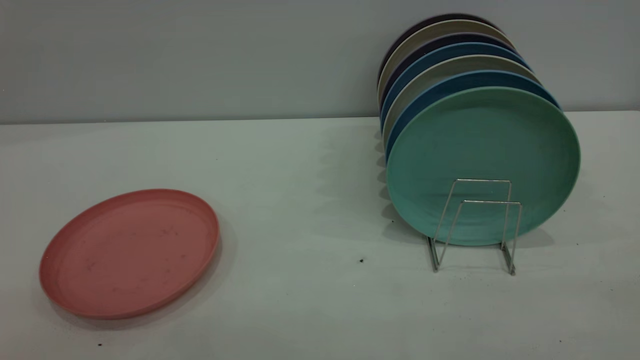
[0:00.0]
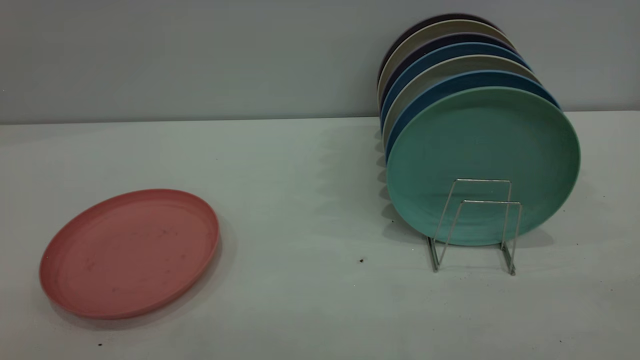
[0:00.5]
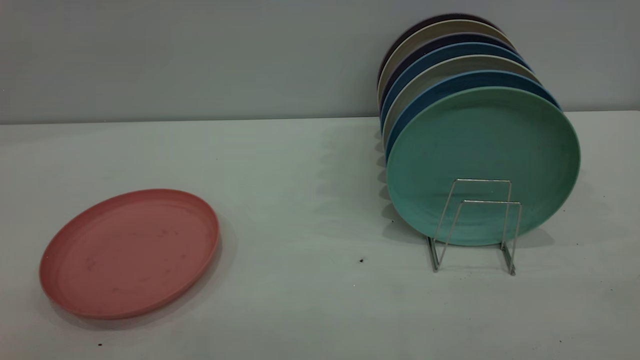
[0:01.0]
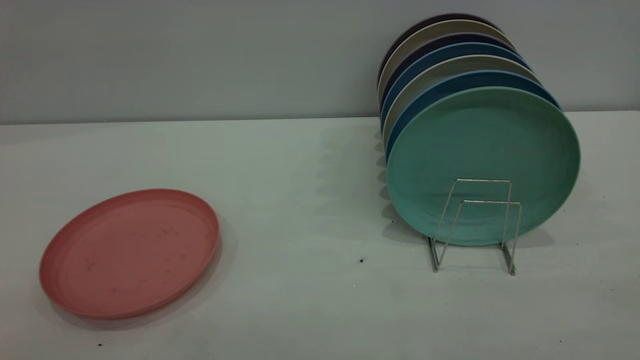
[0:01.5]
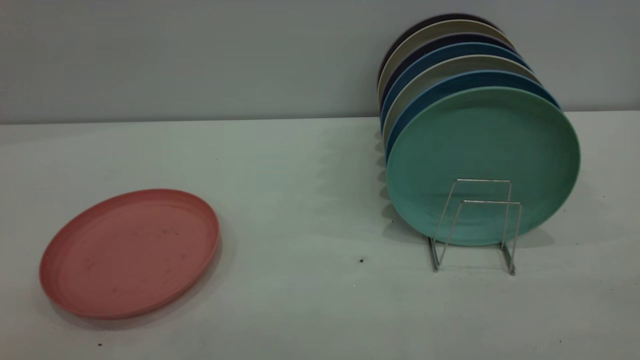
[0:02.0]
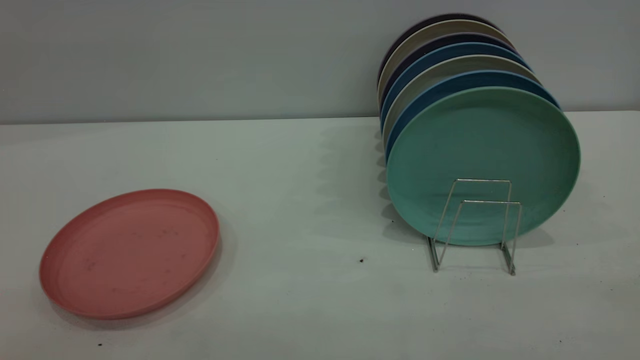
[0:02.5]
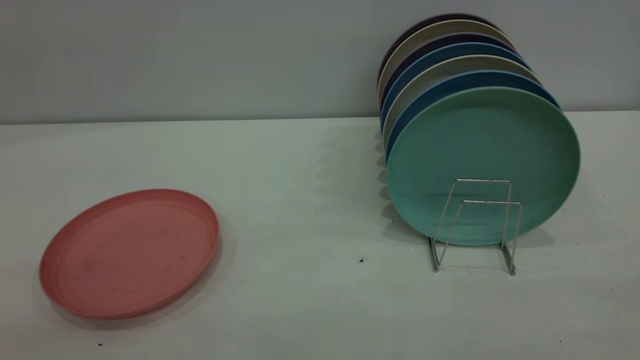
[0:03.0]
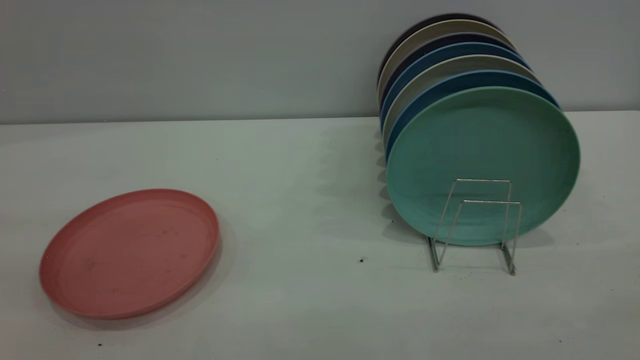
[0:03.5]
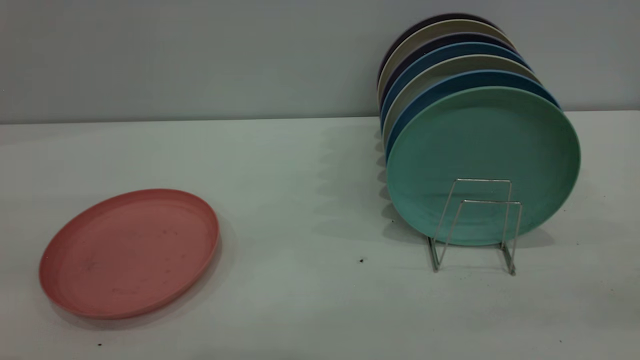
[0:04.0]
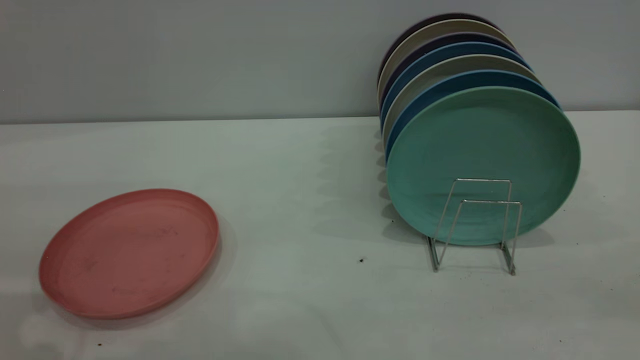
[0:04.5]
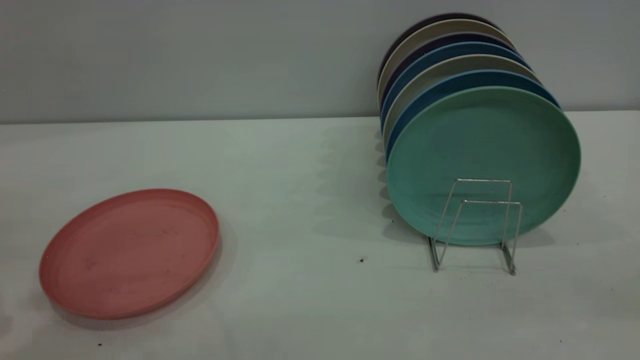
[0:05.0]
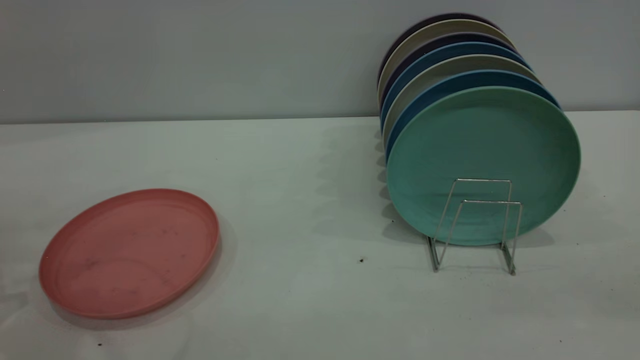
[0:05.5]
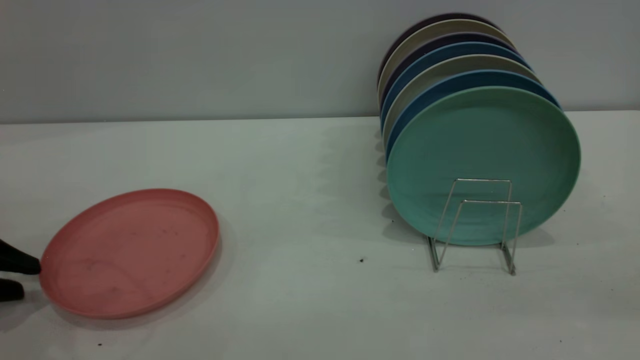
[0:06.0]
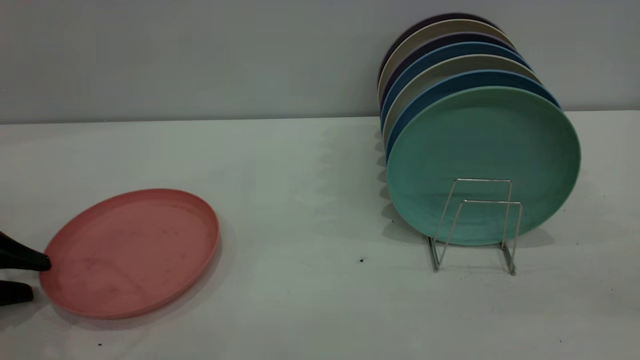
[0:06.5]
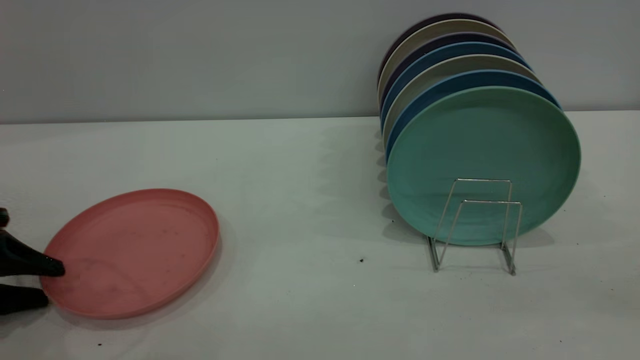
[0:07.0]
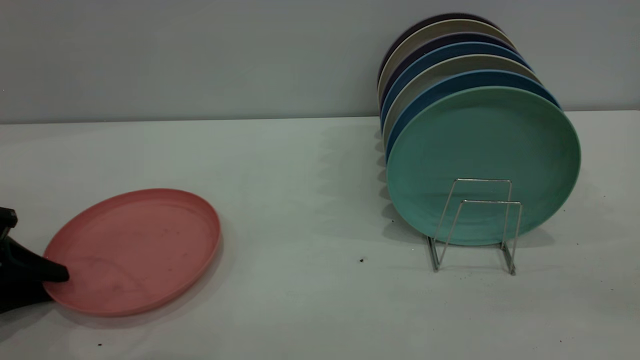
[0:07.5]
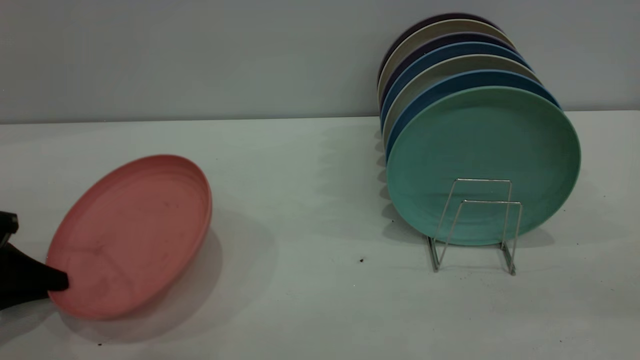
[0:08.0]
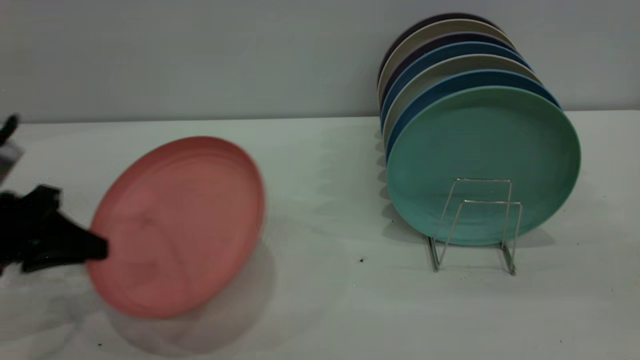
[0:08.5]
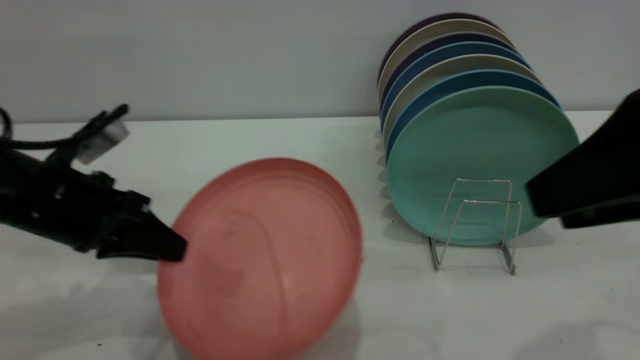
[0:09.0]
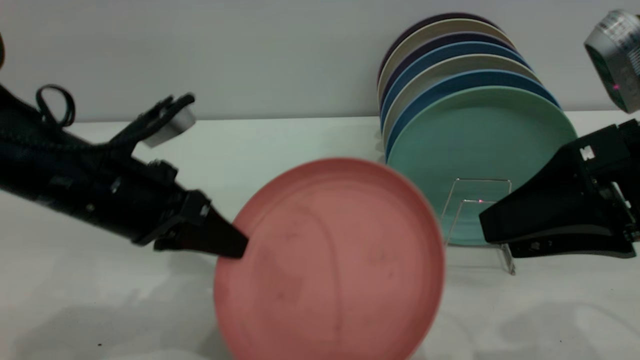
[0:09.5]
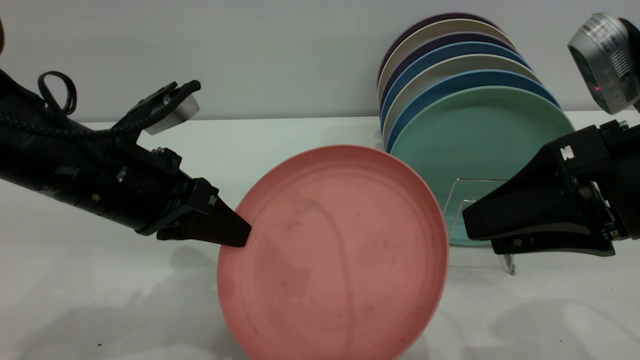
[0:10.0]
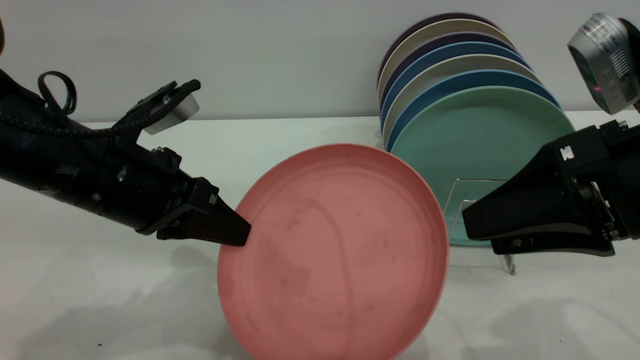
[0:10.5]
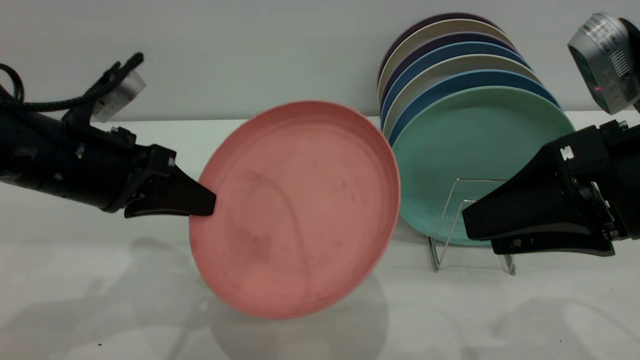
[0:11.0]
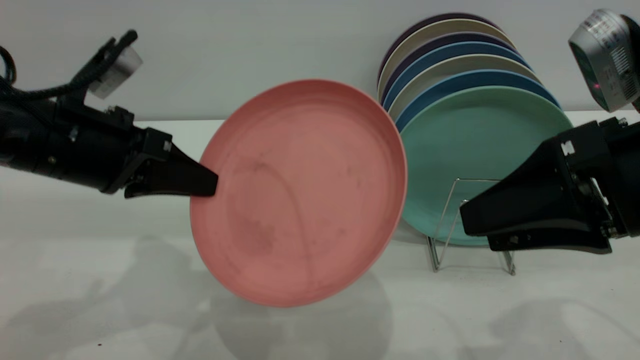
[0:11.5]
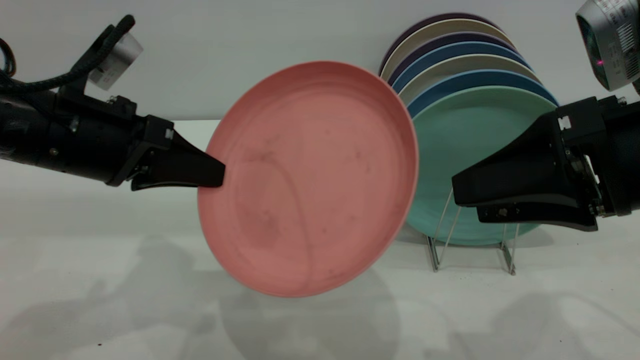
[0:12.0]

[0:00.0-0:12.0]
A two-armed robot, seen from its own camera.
Task of the whole recording: put the plate on the plate rack.
Step, 0:00.0 to 0:08.0: Pick up the plate with the left gripper.
0:00.0 to 0:02.0: Both grippers stay about where they are.
0:04.0 to 0:06.0: The left gripper travels downward, to the left and forward by approximately 25 cm.
0:06.0 to 0:08.0: The left gripper closes.
0:08.0 to 0:10.0: The right gripper shifts roughly 20 cm forward and downward. The left gripper goes some 20 cm to the right and upward.

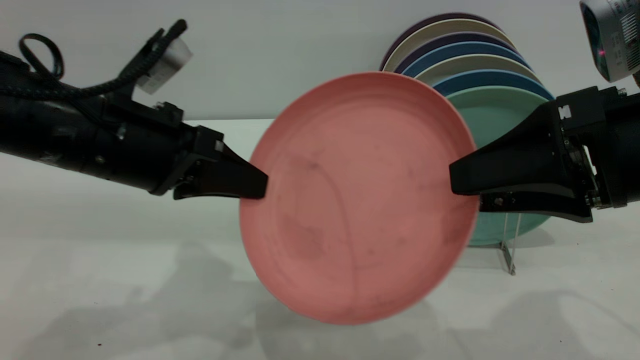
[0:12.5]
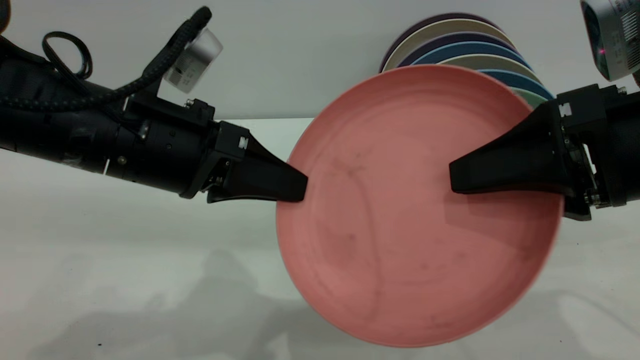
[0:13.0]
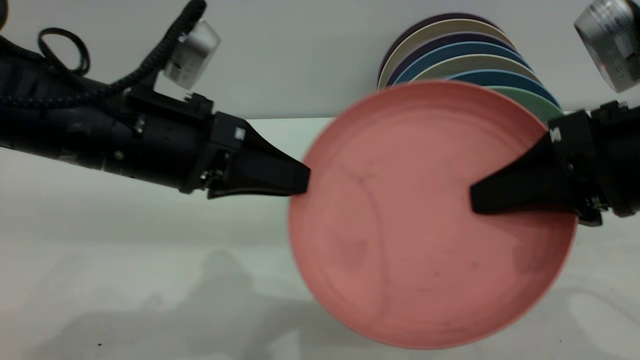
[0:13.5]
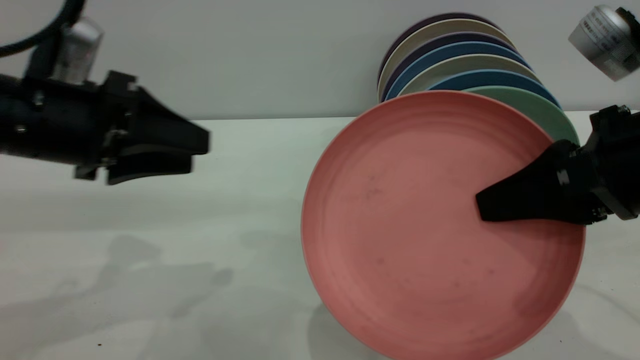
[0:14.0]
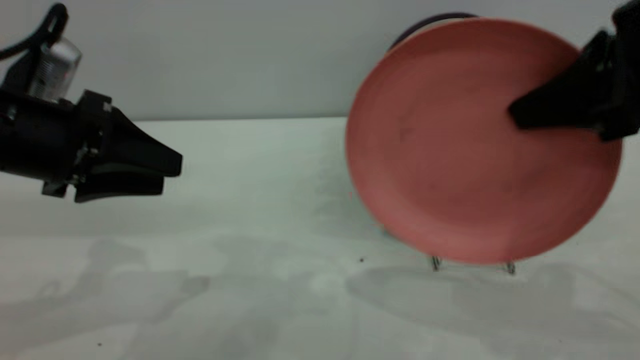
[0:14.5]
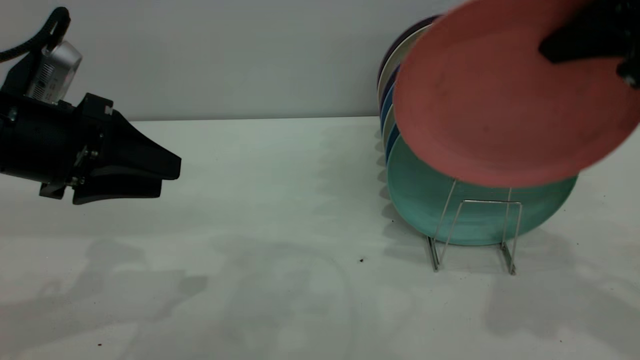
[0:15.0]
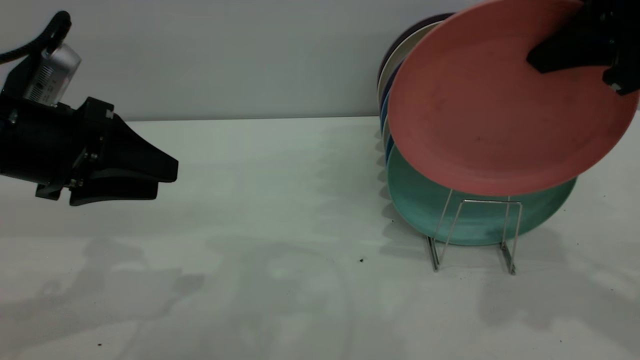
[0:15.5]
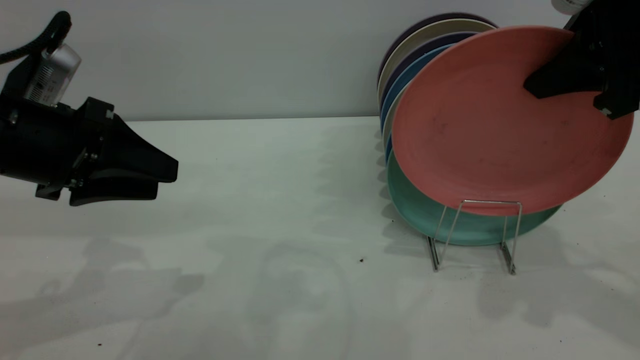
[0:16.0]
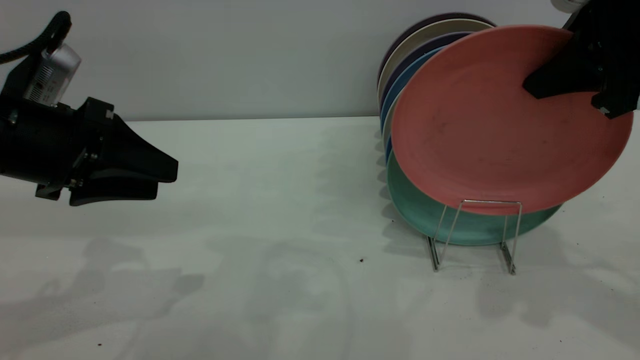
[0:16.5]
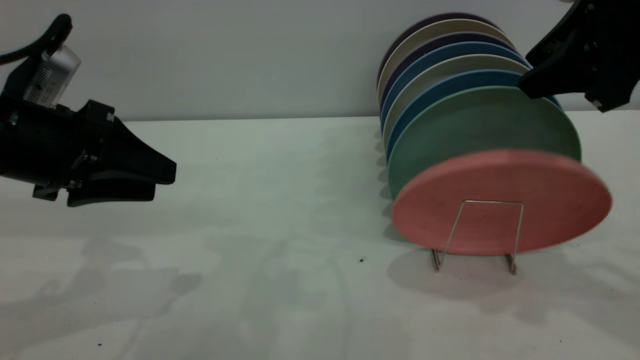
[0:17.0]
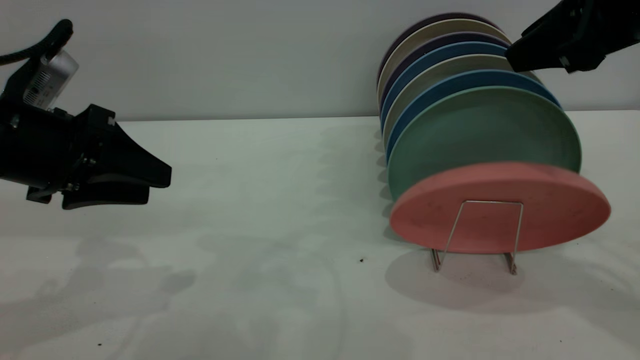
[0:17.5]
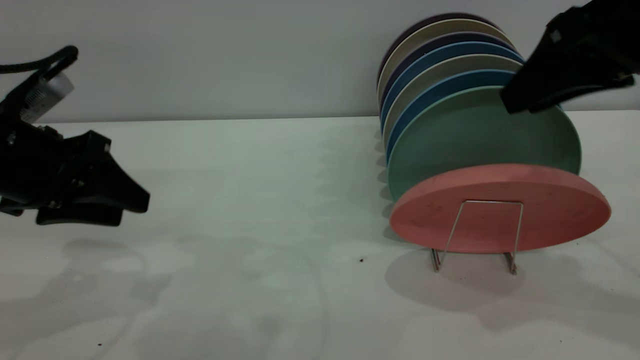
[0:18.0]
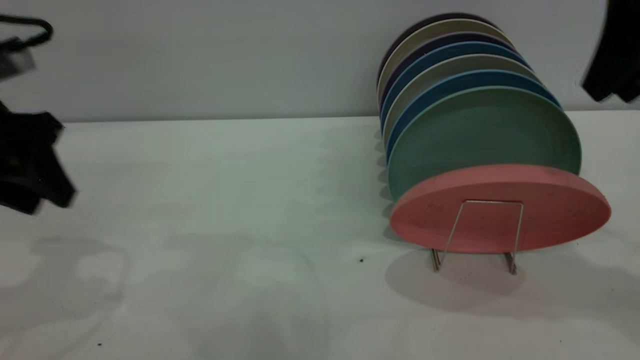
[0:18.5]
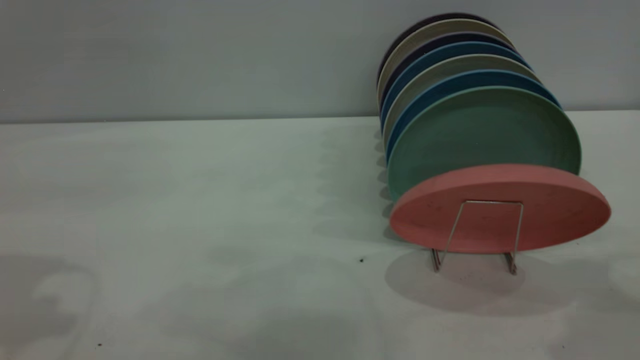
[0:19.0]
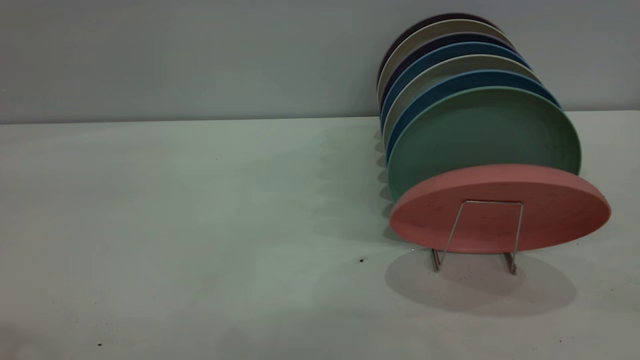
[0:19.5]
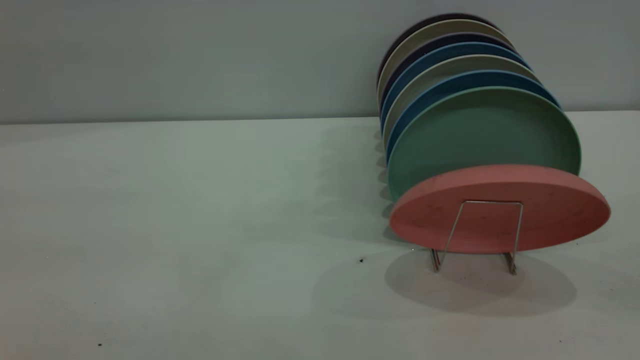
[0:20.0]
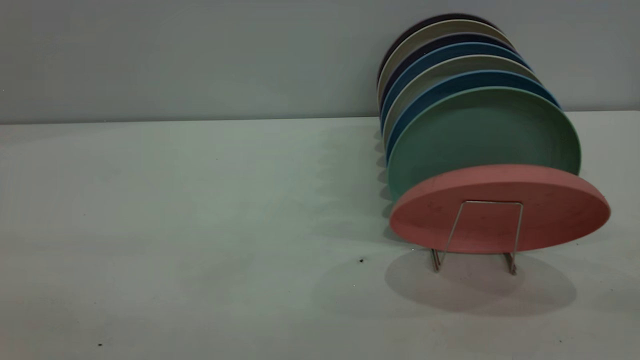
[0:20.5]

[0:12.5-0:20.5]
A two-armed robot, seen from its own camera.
Task of the whole recording: put the plate on the plate rack.
Step, 0:14.0 to 0:18.0: Place the plate on the shelf.
0:12.5 to 0:14.5: The left gripper is displaced to the left by roughly 10 cm, and opens up. The right gripper moves upward, about 5 cm, and closes its fingers.
0:14.5 to 0:16.5: The right gripper heads forward, covering roughly 5 cm.
0:16.5 to 0:18.5: The left gripper is displaced upward by about 5 cm.
0:18.5 to 0:20.5: The left gripper is displaced backward and upward by about 30 cm; the right gripper shifts roughly 25 cm backward.
